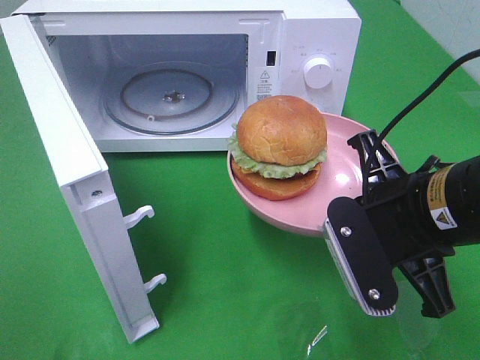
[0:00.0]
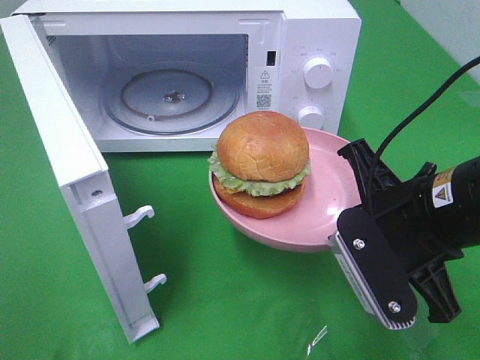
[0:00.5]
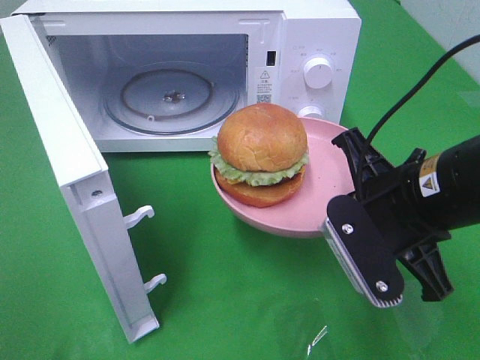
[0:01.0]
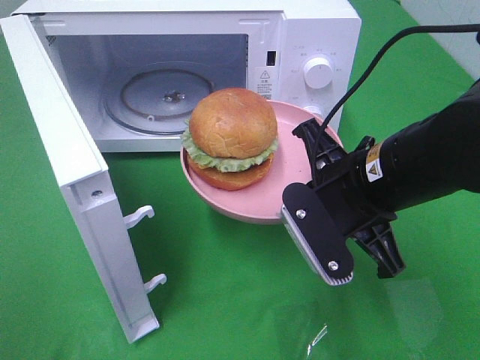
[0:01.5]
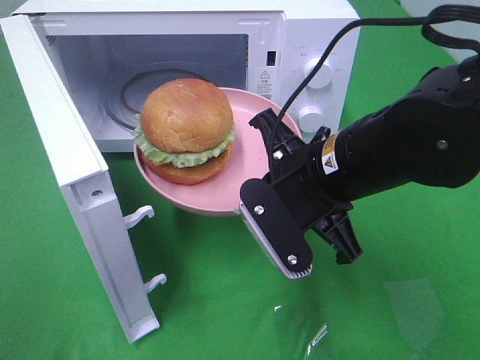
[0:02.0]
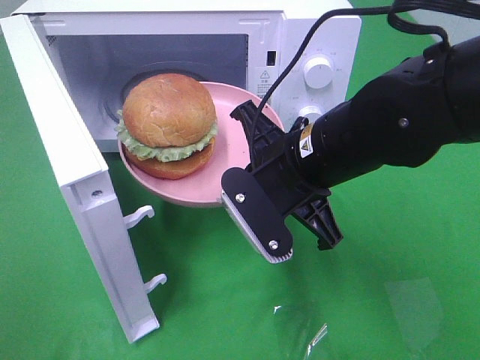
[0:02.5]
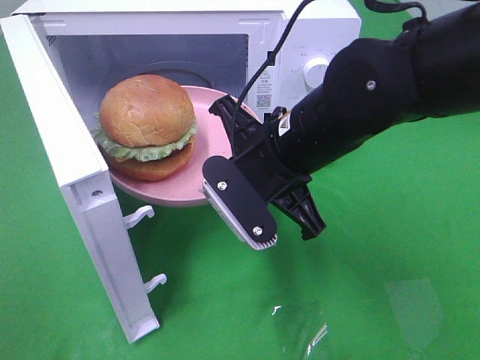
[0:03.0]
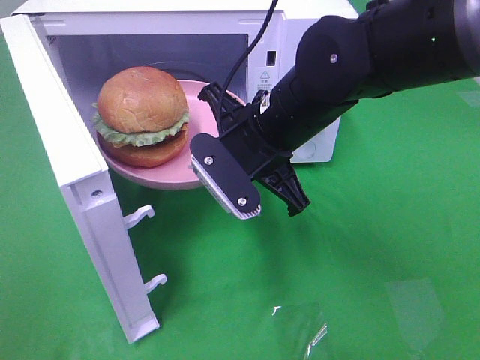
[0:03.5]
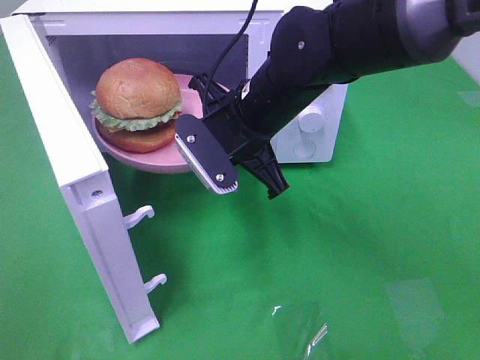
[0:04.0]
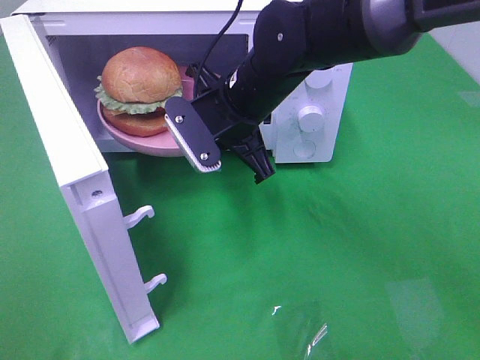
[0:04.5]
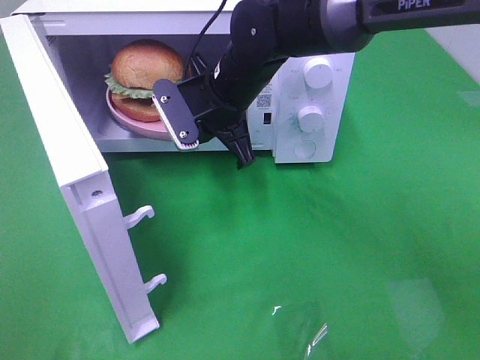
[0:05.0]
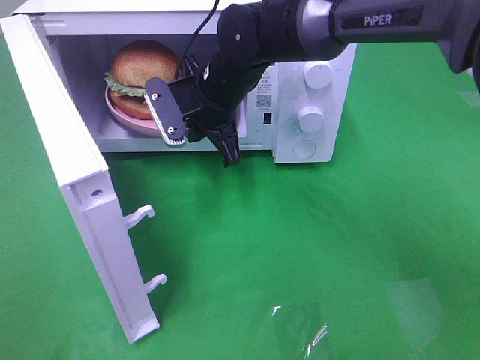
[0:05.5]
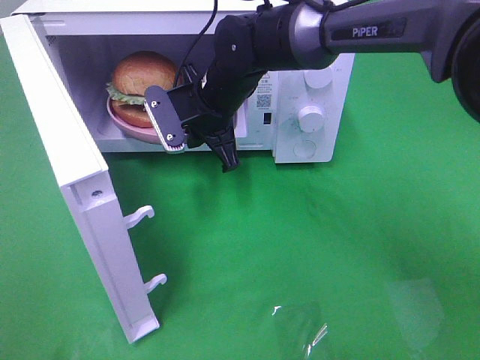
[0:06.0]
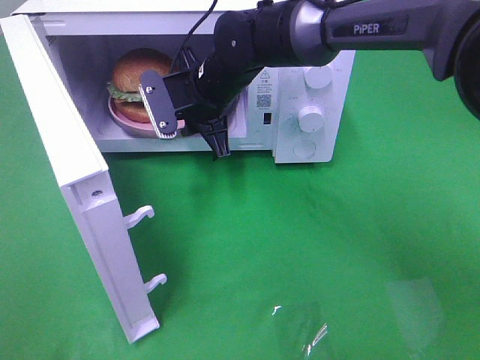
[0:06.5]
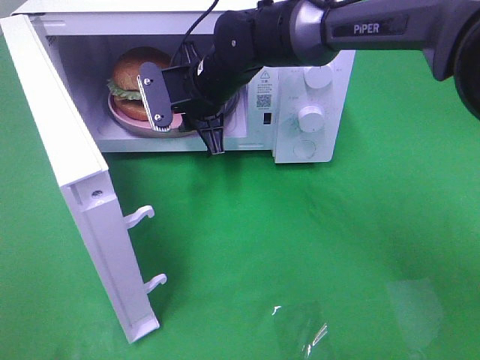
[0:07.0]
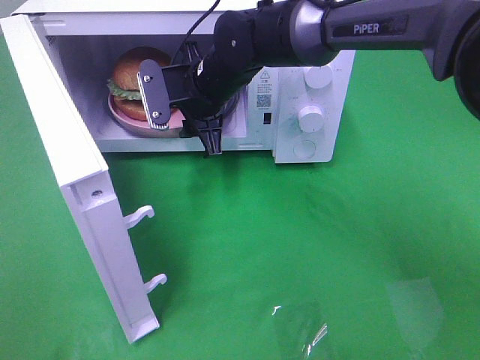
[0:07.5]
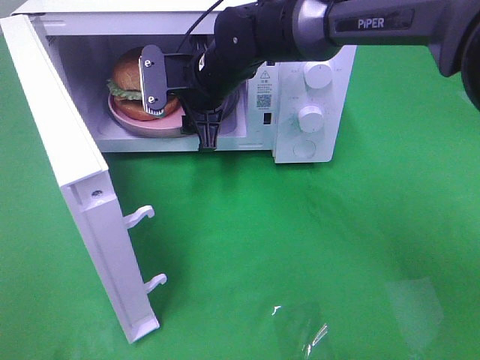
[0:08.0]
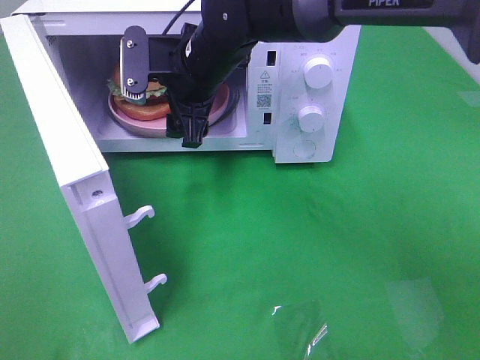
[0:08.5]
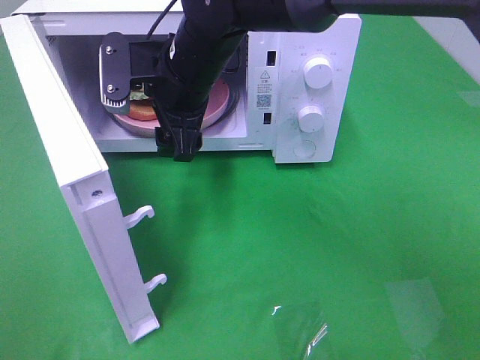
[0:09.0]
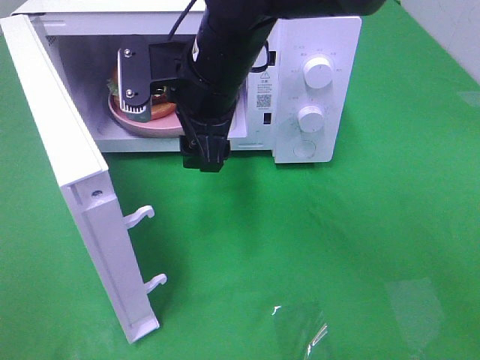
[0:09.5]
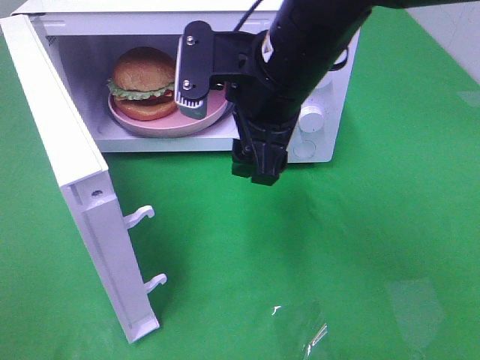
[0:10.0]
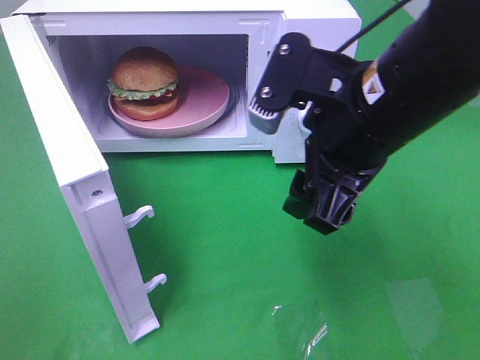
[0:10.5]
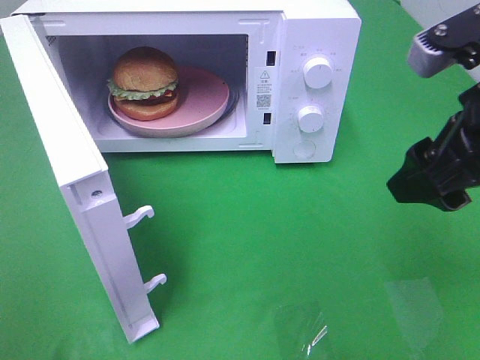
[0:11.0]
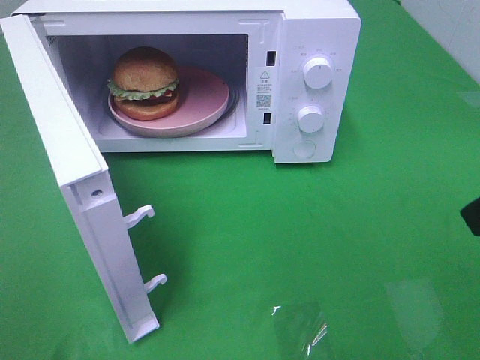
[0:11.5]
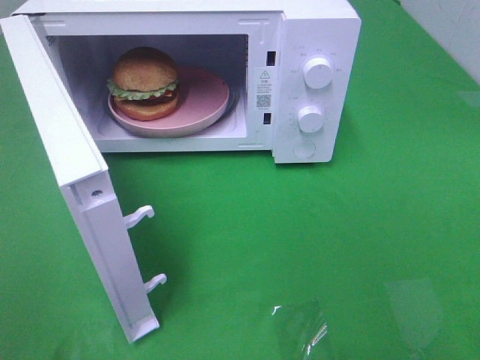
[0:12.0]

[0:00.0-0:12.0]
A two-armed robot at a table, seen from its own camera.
Task of the whole recording: Heat the burger.
Step, 0:00.0 to 0:06.0: Right hand: place the plate in the microwave.
0:00.0 to 0:02.0: The right gripper moves to the left, roughly 5 cm.
0:02.0 to 0:04.0: The right gripper travels forward and to the left by roughly 10 cm.
0:04.0 to 0:06.0: The right gripper moves forward, approximately 10 cm.
0:06.0 to 0:08.0: The right gripper opens.
0:08.0 to 0:10.0: The right gripper goes approximately 15 cm backward, upward and to the right.
0:10.0 to 0:12.0: The right gripper is displaced to the right and backward by some 30 cm.

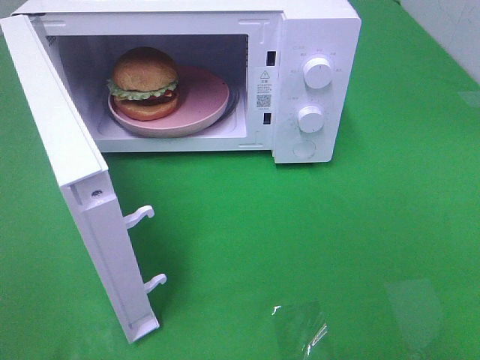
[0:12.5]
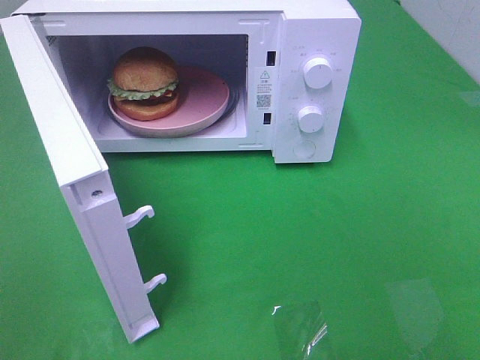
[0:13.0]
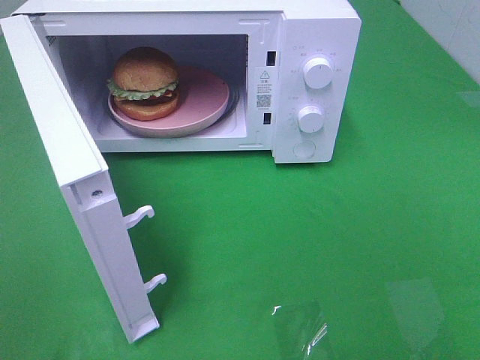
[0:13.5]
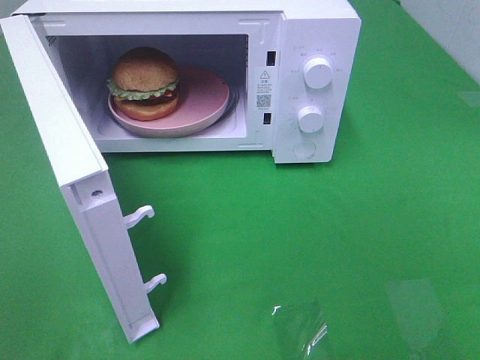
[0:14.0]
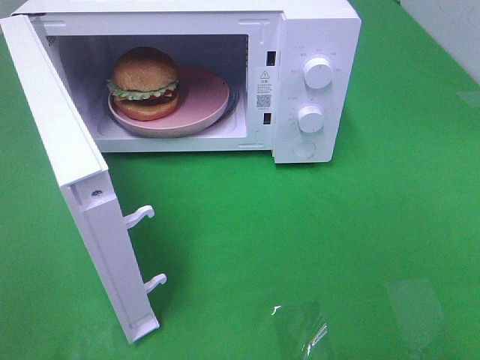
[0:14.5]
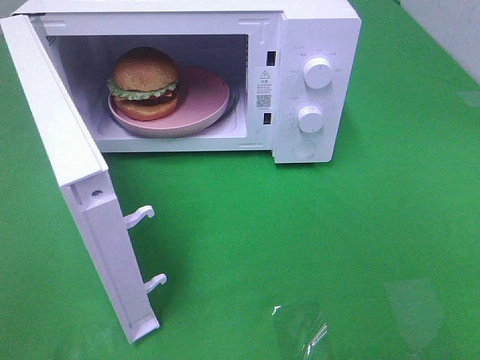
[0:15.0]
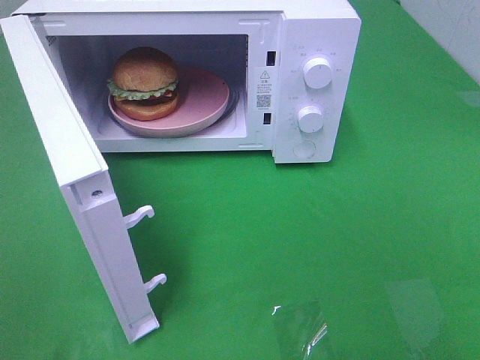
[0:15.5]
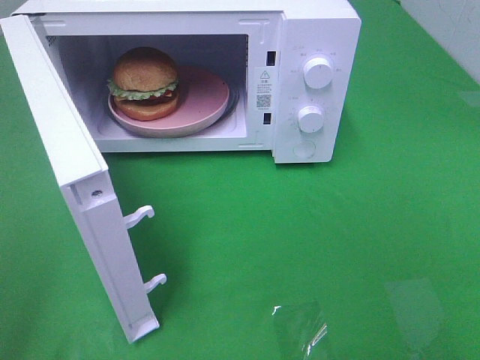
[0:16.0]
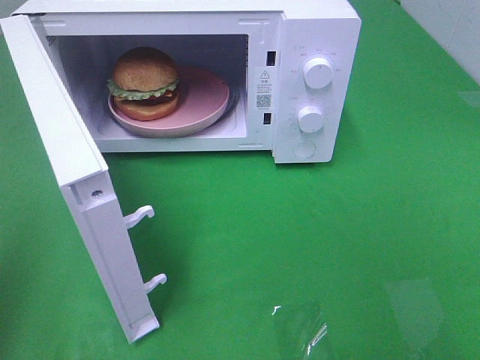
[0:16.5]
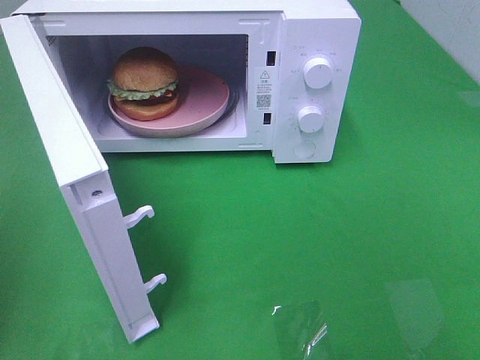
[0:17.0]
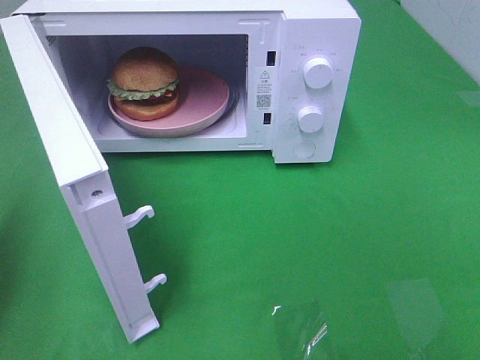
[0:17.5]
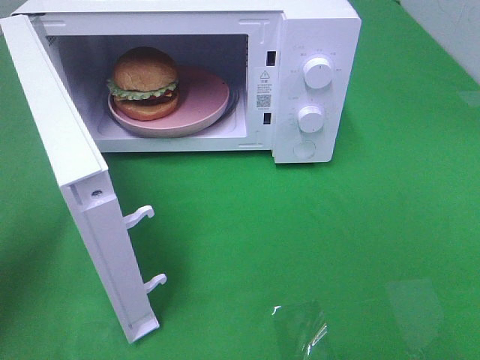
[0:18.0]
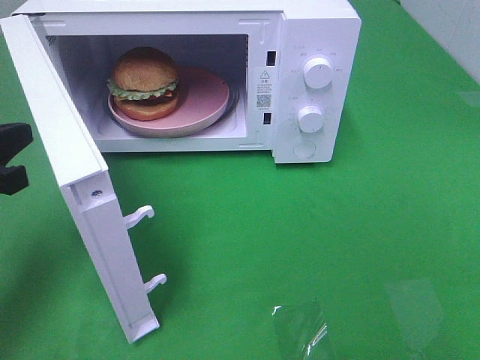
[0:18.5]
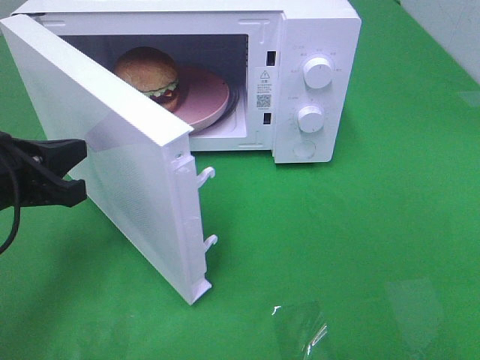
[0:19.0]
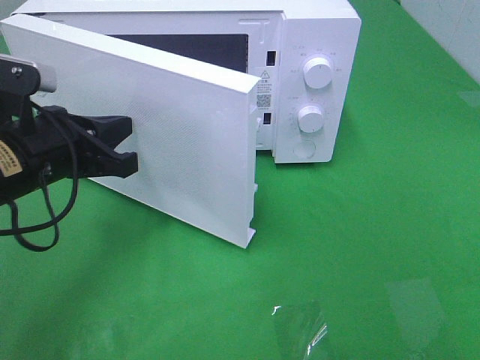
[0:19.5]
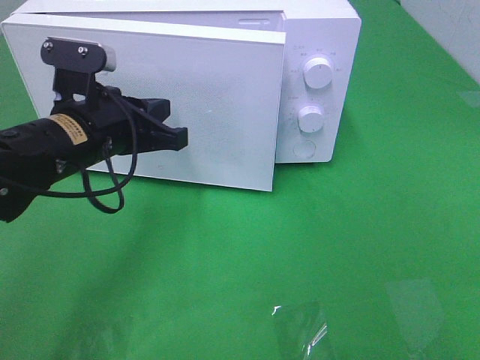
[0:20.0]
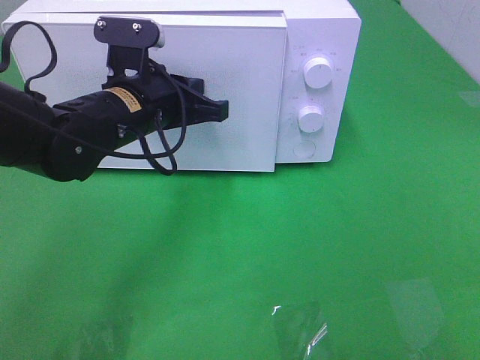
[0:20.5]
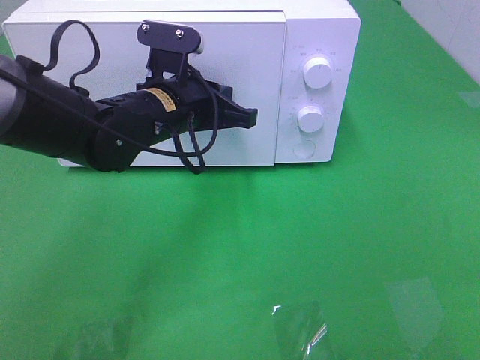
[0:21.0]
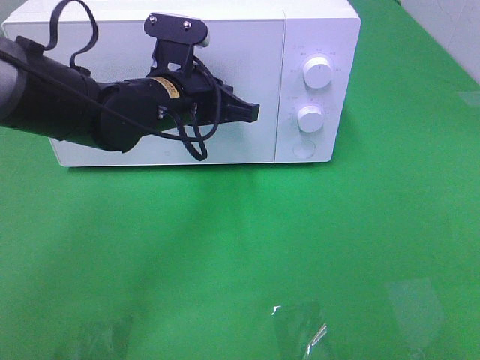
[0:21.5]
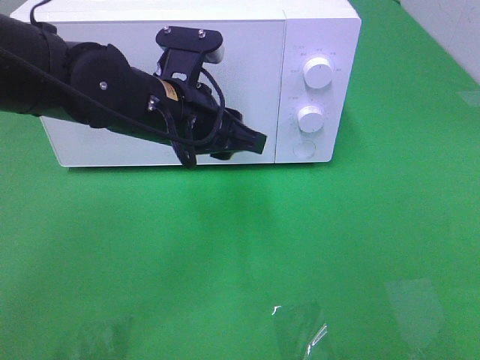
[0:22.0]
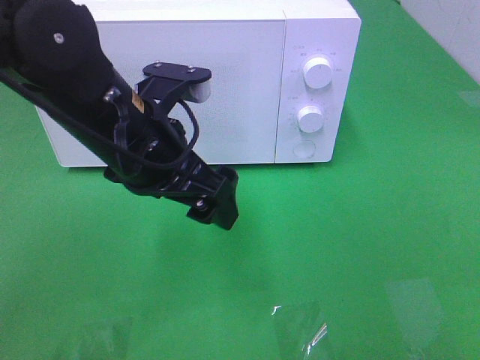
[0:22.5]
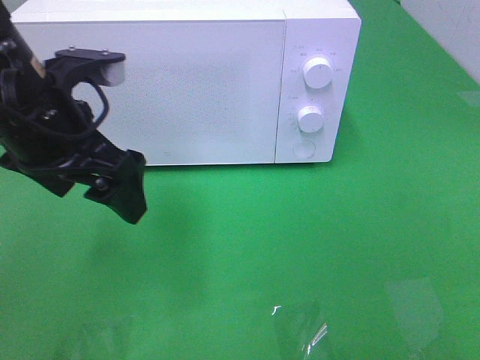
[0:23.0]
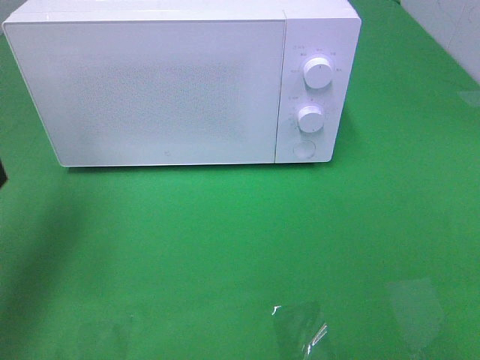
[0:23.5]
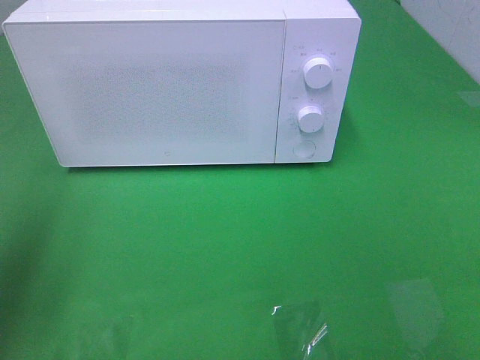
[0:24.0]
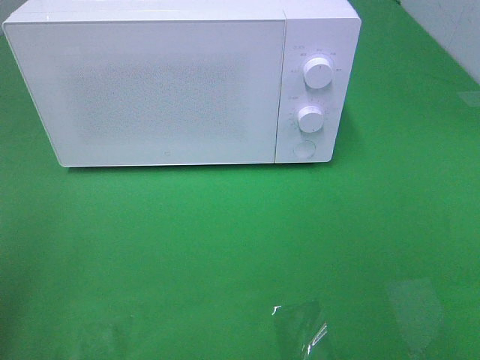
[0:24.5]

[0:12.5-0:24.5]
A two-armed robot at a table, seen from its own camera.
Task of the whole recording: Heat the burger.
Step, 0:12.5 to 0:21.5: Left hand: close the microwave door.
0:16.5 to 0:18.5: The left gripper moves forward, downward and to the right, approximately 20 cm.
0:18.5 to 0:20.5: The left gripper goes approximately 20 cm to the right and forward.
0:20.5 to 0:22.5: The left gripper is displaced backward by some 10 cm, and opens up.
0:22.5 to 0:24.5: The left gripper heads to the left and backward, covering some 30 cm.

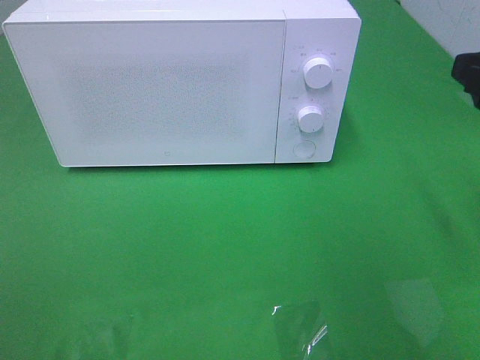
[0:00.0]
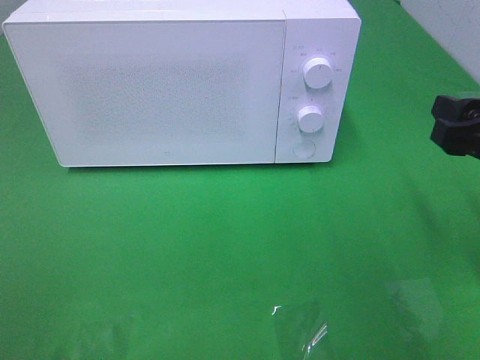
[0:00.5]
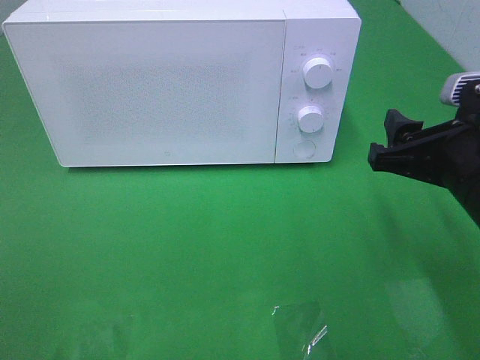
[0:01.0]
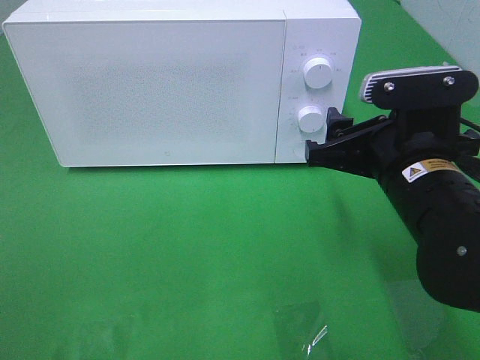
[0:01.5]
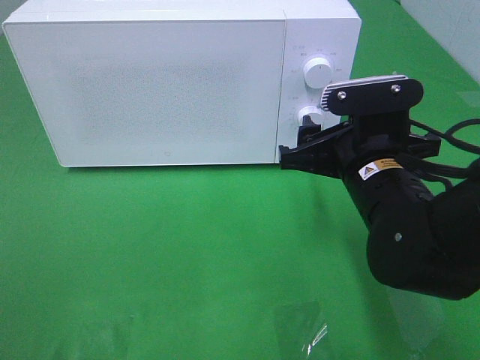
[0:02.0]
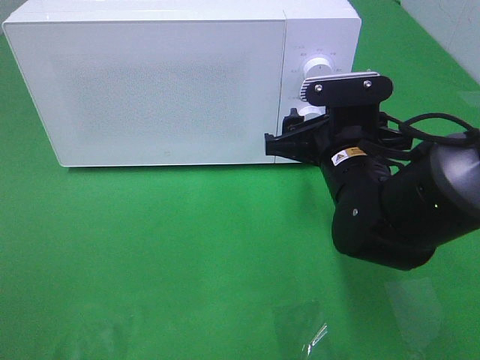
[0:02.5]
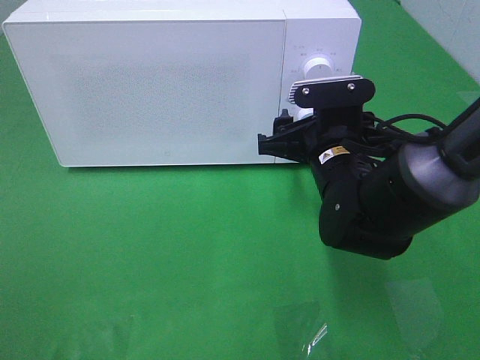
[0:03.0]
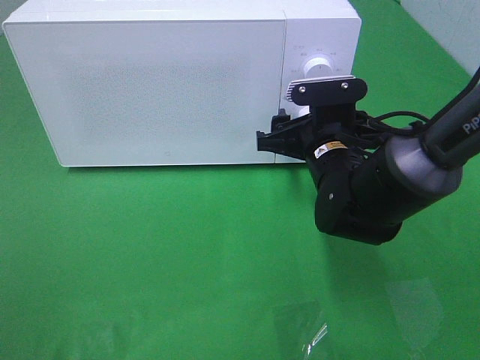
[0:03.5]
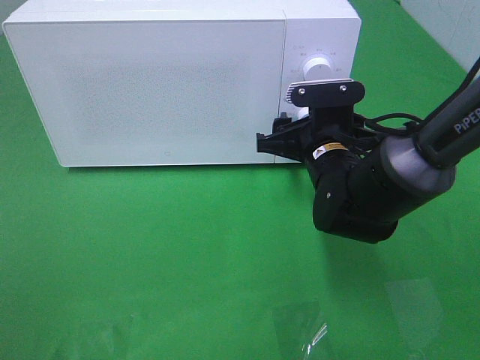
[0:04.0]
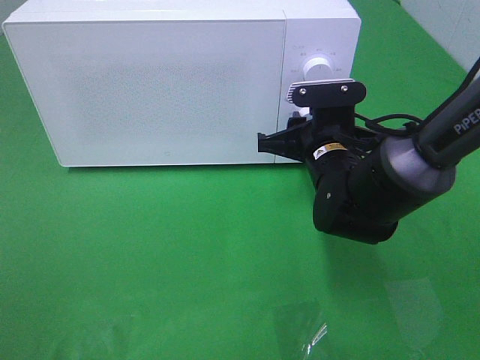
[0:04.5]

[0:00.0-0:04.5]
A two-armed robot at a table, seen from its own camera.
Task of the whole recording: Heat the burger.
0:00.0 to 0:02.0: The right gripper travels to the left and downward by approximately 20 cm.
0:02.0 to 0:04.5: The right gripper is displaced forward by some 10 cm, and closes.
